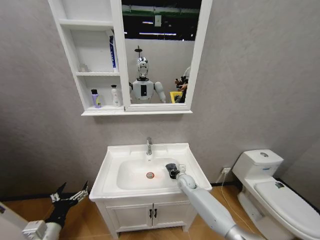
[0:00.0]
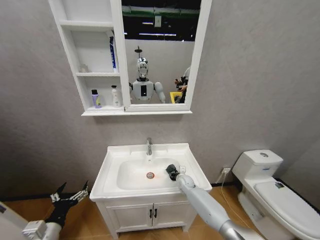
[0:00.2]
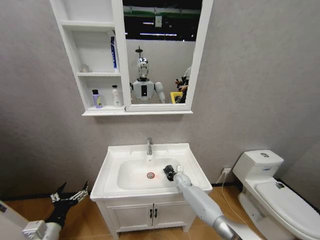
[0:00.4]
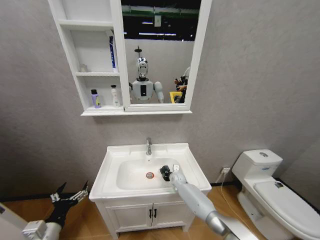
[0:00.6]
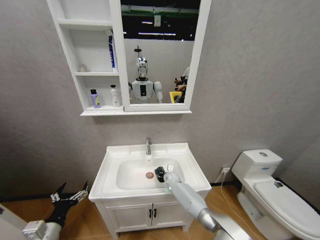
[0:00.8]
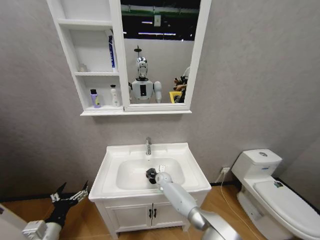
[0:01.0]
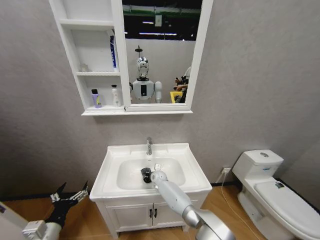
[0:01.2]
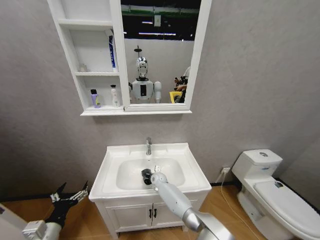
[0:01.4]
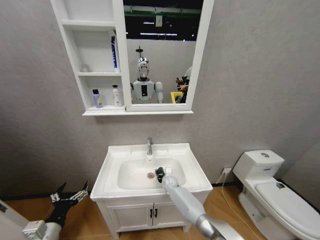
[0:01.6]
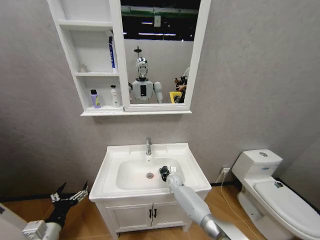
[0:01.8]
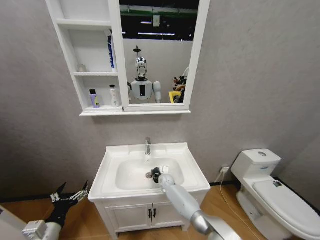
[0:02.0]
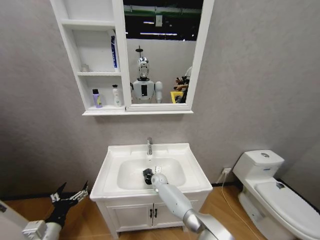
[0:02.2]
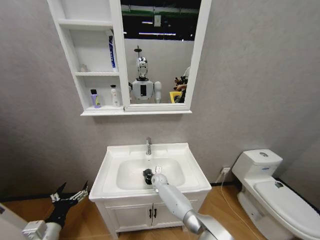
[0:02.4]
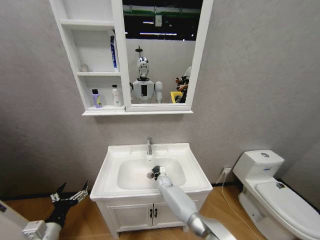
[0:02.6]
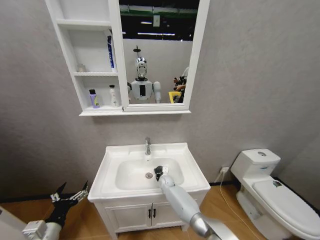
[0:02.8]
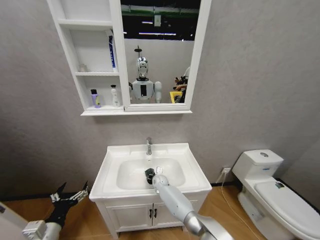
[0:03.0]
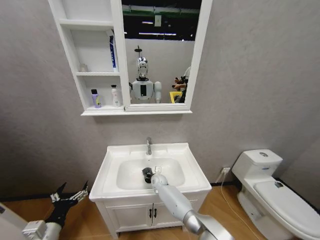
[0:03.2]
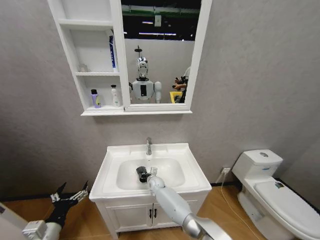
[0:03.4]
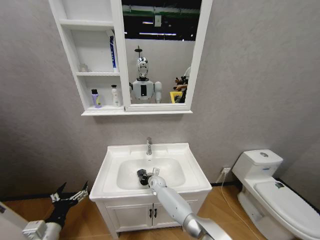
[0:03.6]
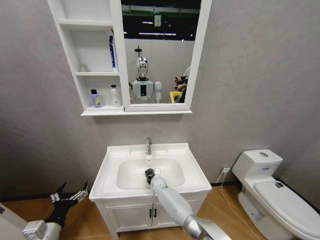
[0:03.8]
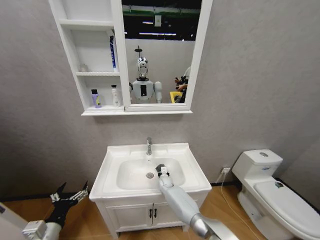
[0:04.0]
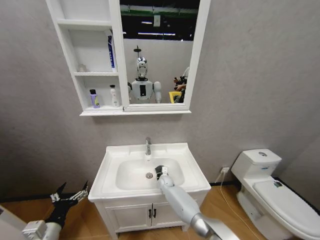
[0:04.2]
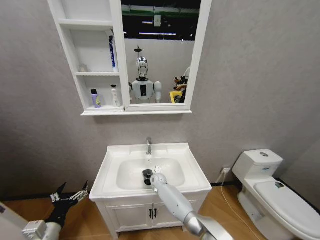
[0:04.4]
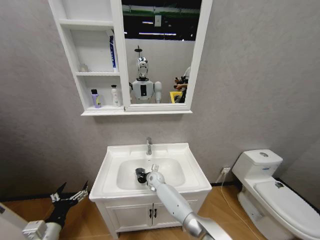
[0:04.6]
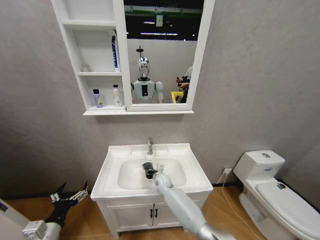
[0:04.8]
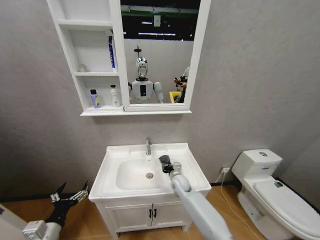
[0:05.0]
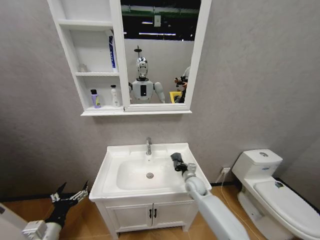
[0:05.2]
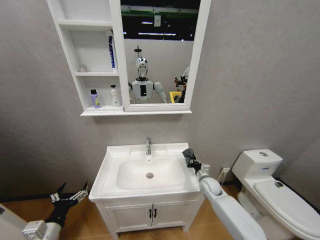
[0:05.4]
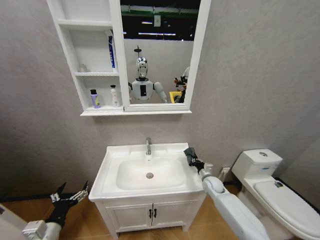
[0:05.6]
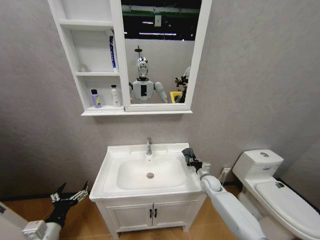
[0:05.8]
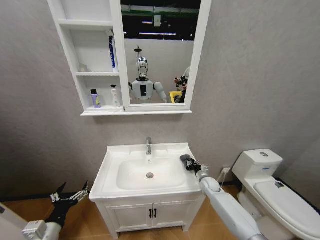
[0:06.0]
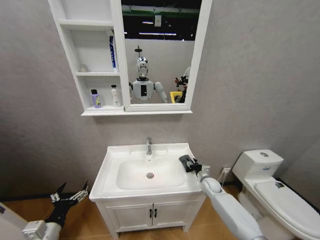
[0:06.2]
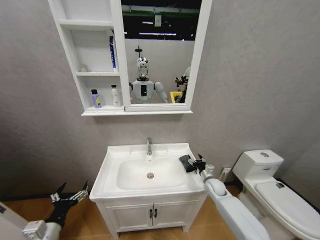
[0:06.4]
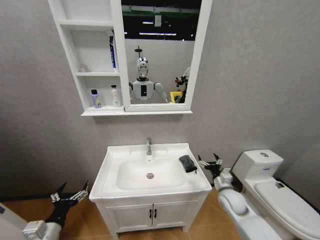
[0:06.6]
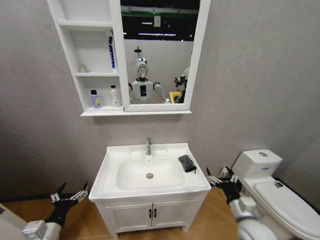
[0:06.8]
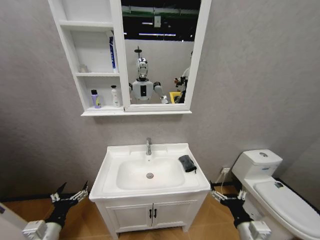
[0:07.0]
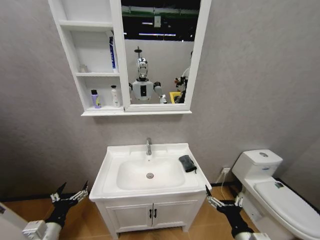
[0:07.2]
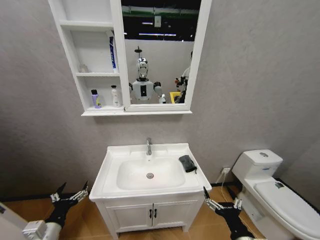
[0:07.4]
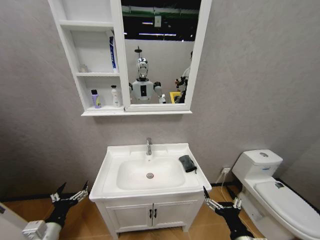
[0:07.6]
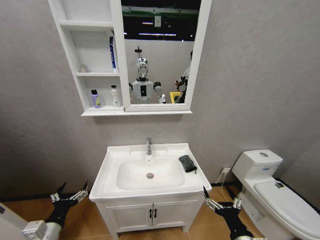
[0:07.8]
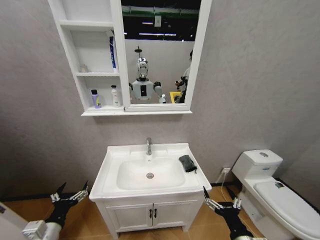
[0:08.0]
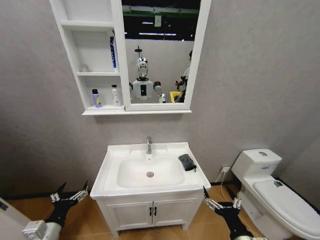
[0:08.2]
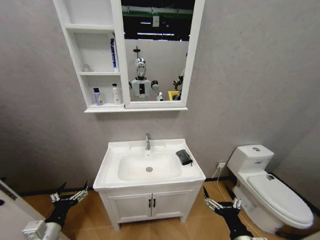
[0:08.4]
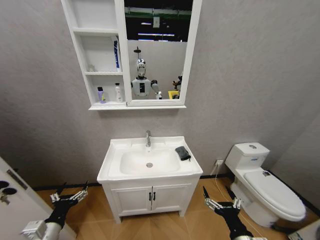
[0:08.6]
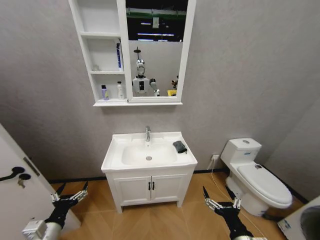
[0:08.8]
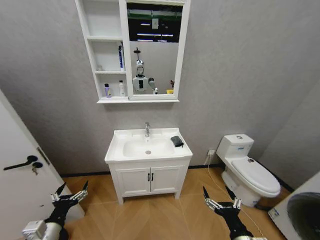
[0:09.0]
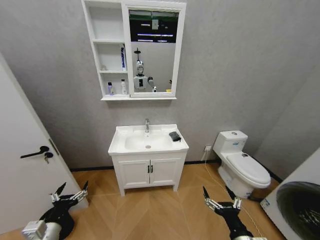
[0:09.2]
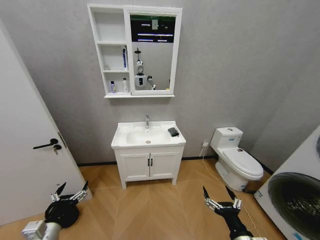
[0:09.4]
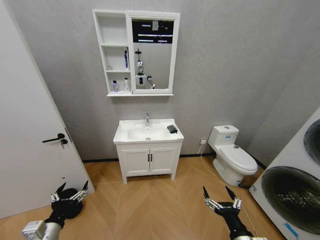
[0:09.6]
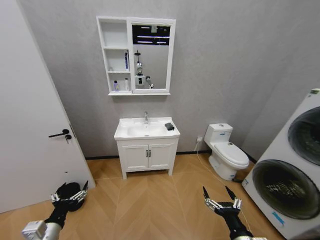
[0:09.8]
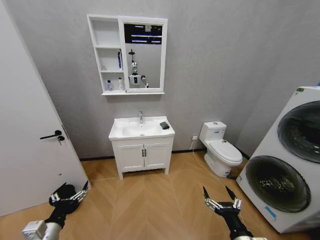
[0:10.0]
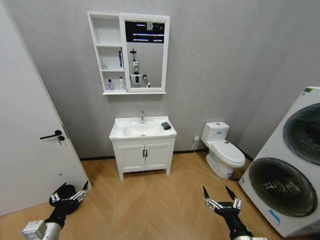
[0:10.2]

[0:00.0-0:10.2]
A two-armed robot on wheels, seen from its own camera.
Task of the whole recording: Move facial cleanser and shampoo from washbasin to cabinet, then wipe washbasin with towel.
0:00.0 to 0:01.4: The right gripper travels to the left by roughly 15 cm.
0:01.4 to 0:03.0: The right gripper goes left and right, about 10 cm each way, reversing 3 times.
0:04.4 to 0:05.8: The right gripper travels to the right by approximately 30 cm.
0:05.8 to 0:07.2: The right gripper goes approximately 35 cm backward, and opens.

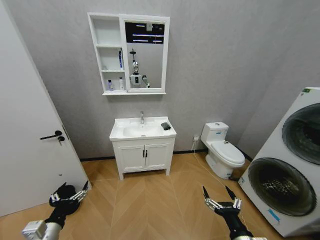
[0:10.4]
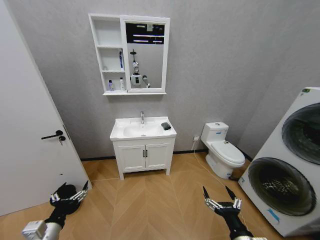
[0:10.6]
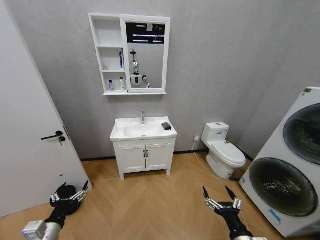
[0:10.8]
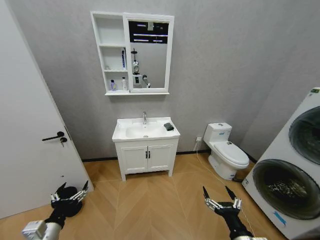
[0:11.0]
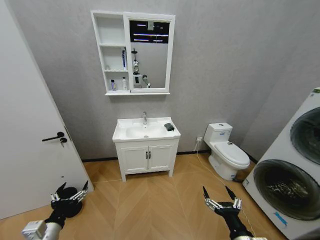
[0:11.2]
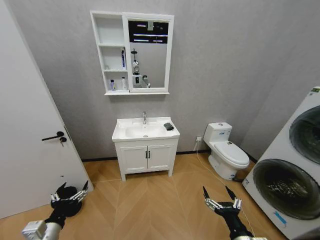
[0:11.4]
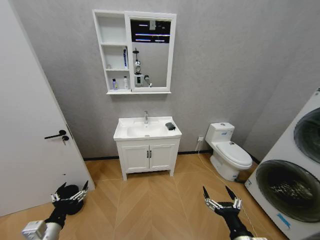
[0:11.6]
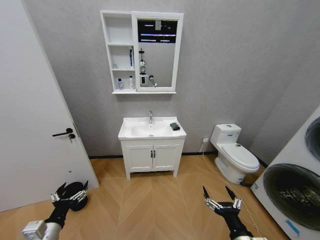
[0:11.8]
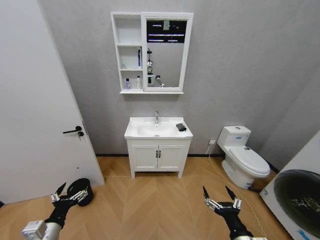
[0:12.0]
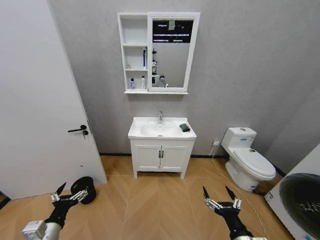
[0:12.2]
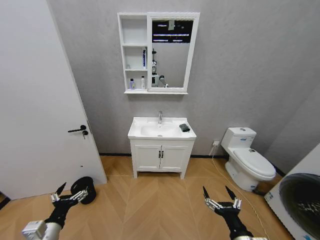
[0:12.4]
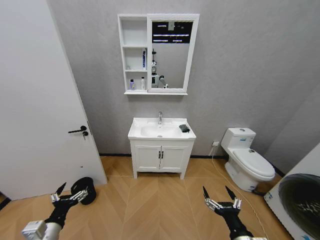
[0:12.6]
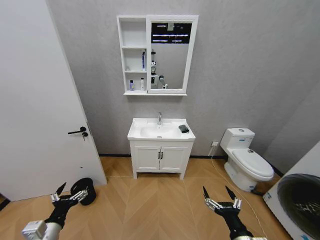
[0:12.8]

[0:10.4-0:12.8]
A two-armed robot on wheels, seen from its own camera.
Task of the whole recording: Move facial cleanser and shampoo from washbasin to cabinet, then wipe washbasin with towel.
0:10.4 to 0:11.6: Both grippers stay about where they are.
